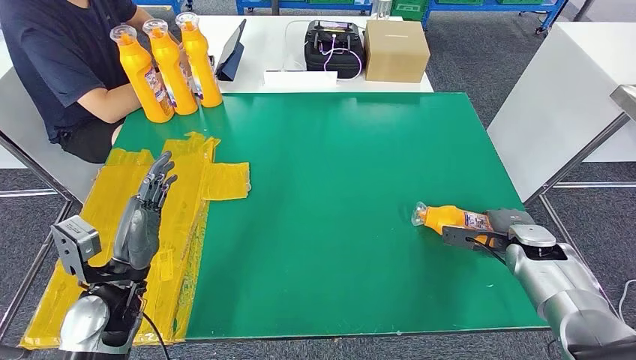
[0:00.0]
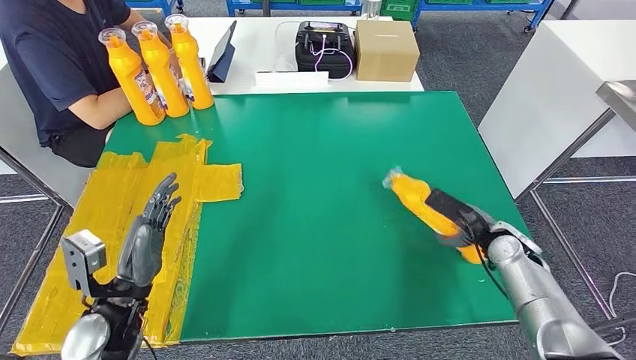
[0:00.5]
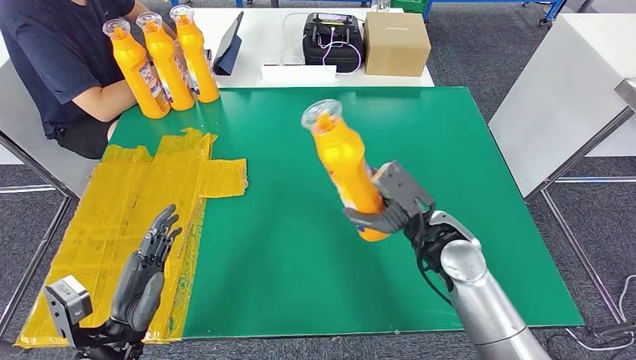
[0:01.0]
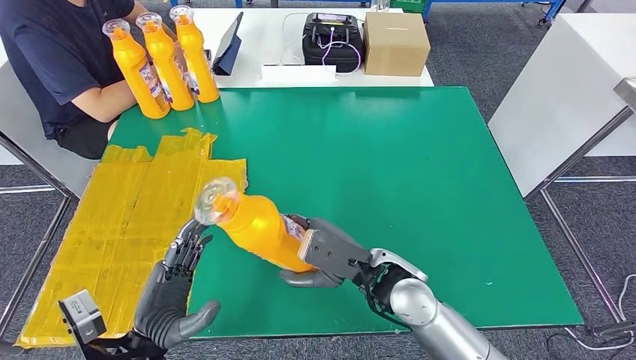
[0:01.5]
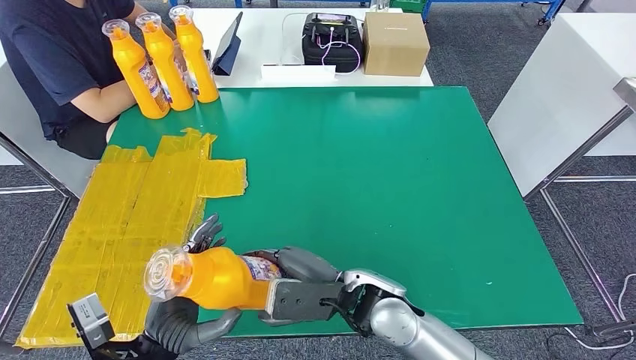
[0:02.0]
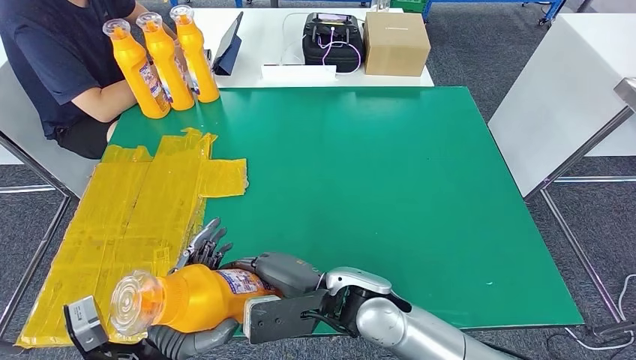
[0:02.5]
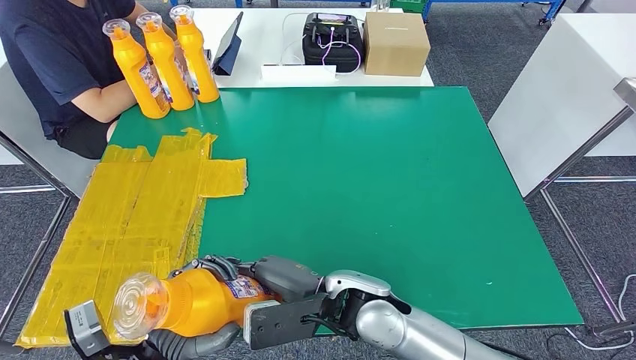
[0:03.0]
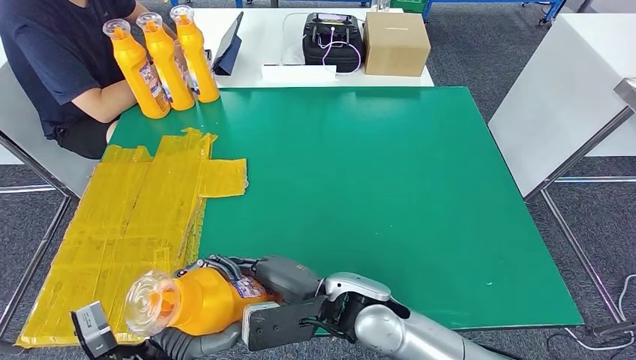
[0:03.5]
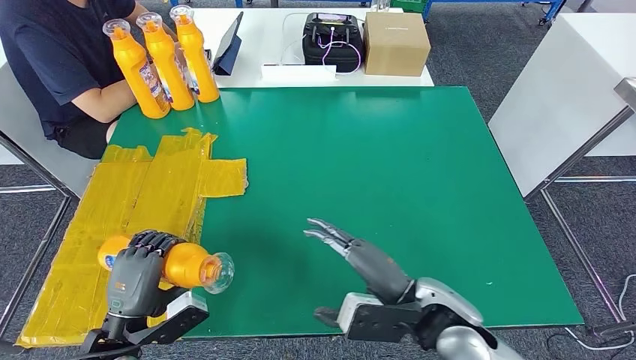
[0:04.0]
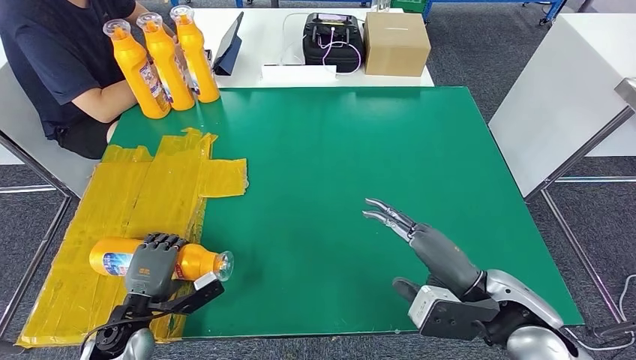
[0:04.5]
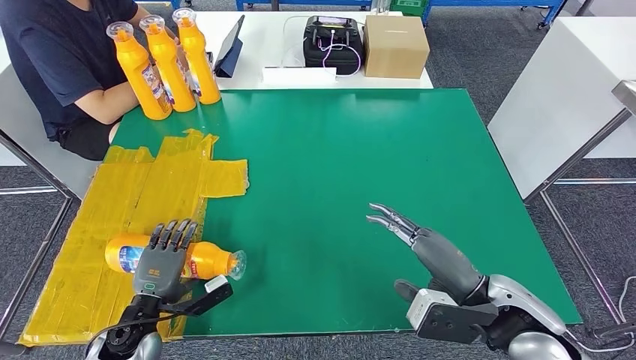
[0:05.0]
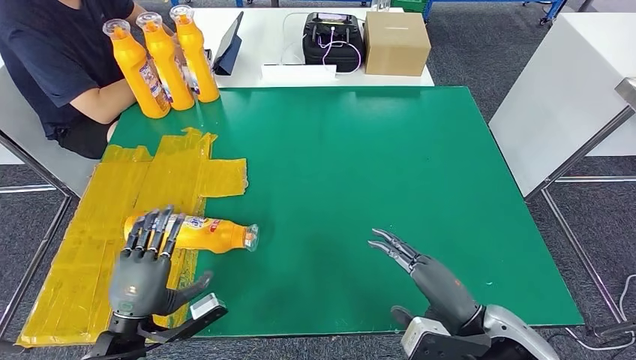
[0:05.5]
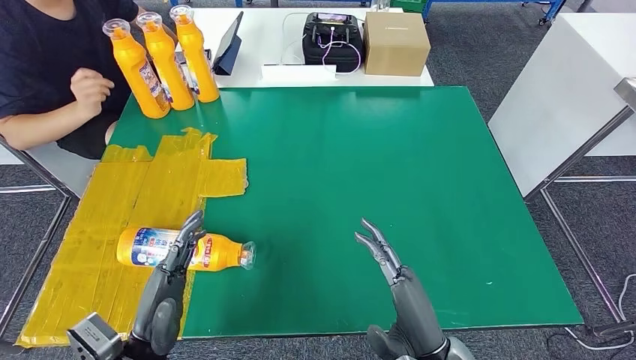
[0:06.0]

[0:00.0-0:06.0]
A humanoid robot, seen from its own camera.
Step, 0:00.0 to 0:02.0: Pick up the bottle from the table.
Step, 0:02.5 to 0:06.0: Flip the bottle to face forward.
0:02.0 to 0:04.0: The left hand travels to the left by approximately 5 cm. Meanwhile the right hand is displaced to the right by some 10 cm.
0:04.0 to 0:06.0: The right hand heads backward, covering about 10 cm, and reaches about 10 cm to the right, then returns; the left hand moves to the right, some 5 cm, and travels downward and back again, roughly 10 cm each way.
